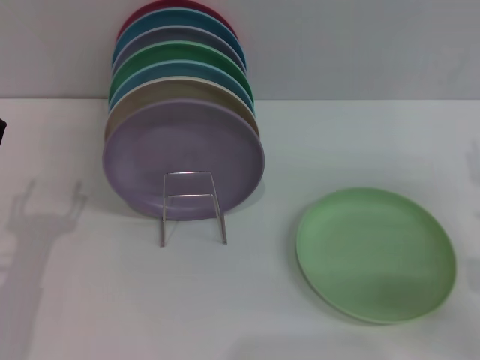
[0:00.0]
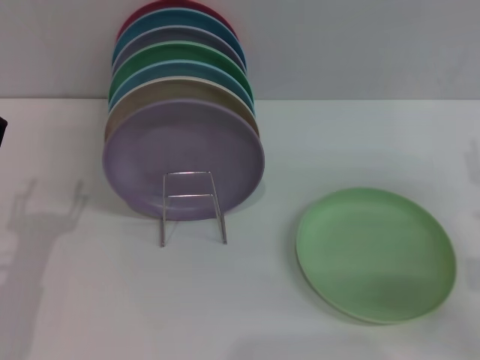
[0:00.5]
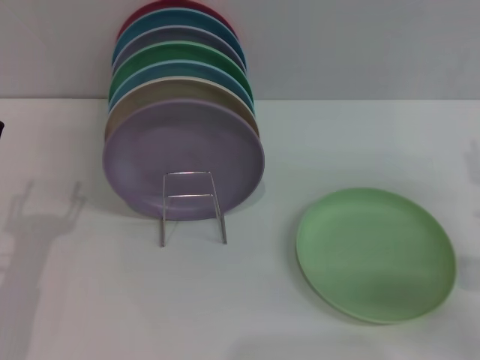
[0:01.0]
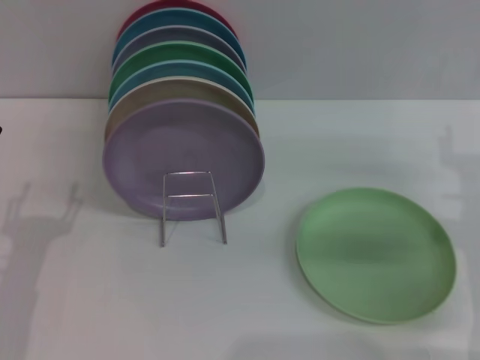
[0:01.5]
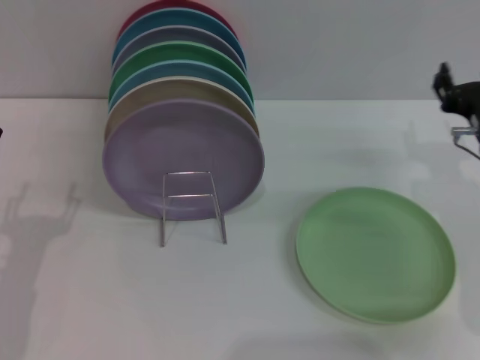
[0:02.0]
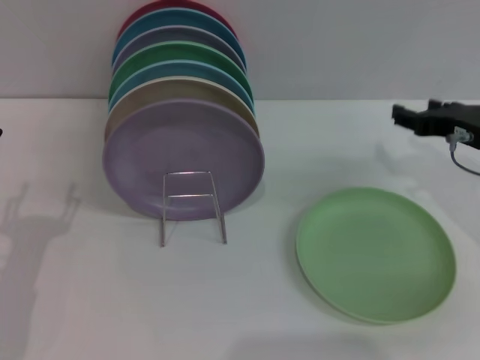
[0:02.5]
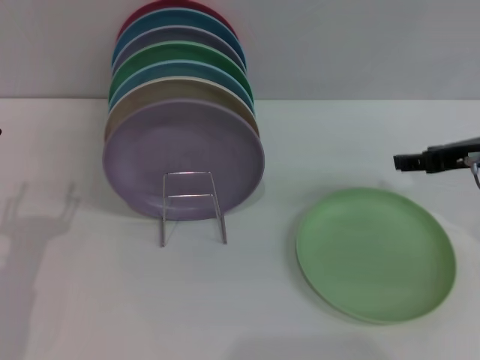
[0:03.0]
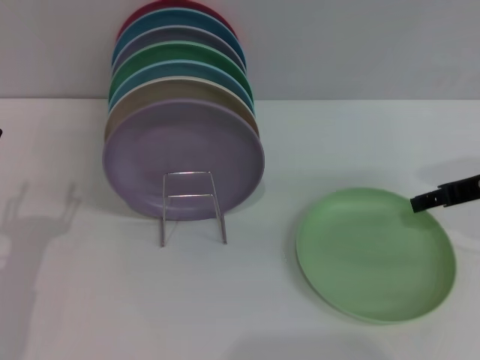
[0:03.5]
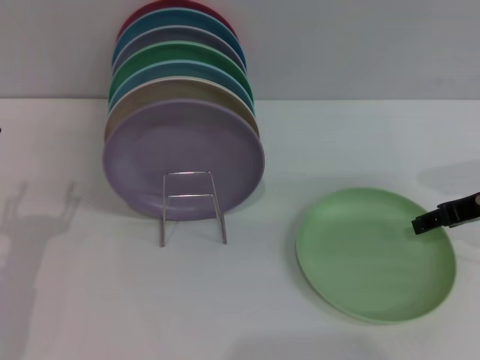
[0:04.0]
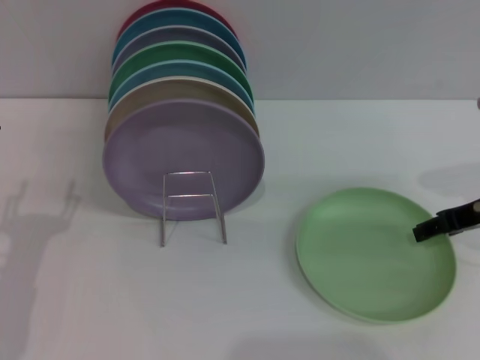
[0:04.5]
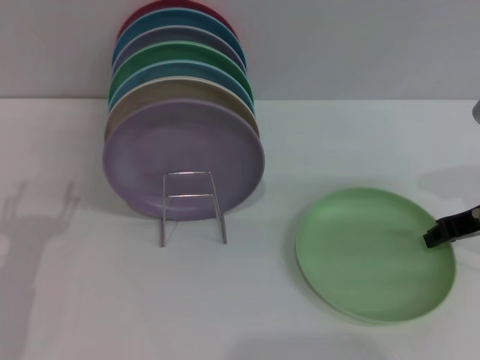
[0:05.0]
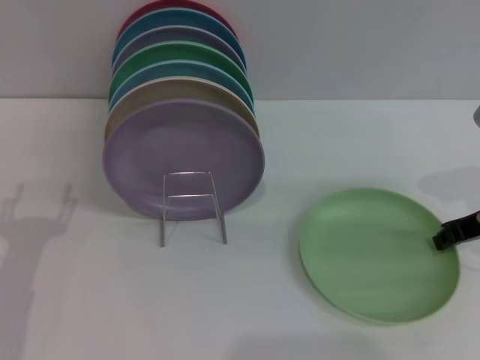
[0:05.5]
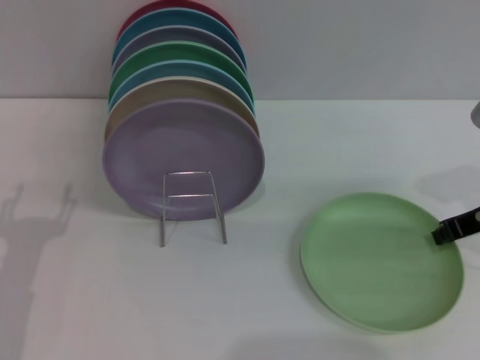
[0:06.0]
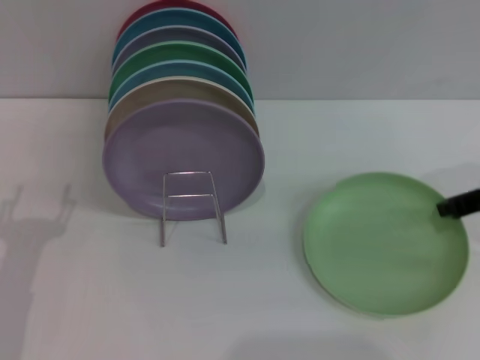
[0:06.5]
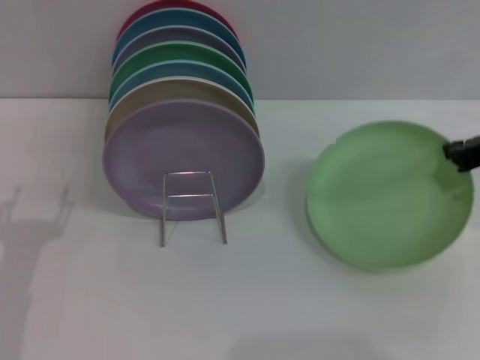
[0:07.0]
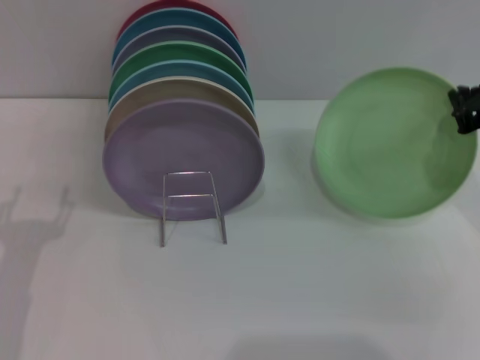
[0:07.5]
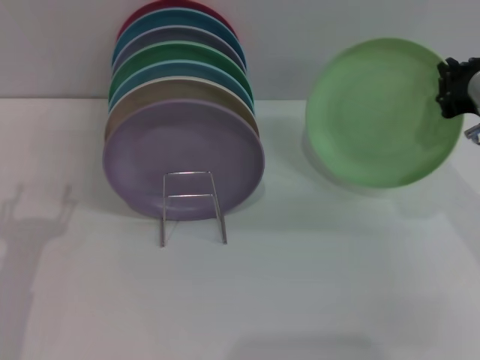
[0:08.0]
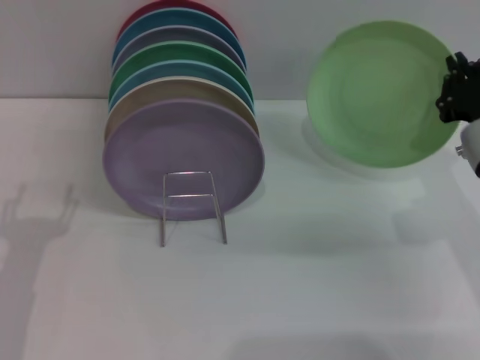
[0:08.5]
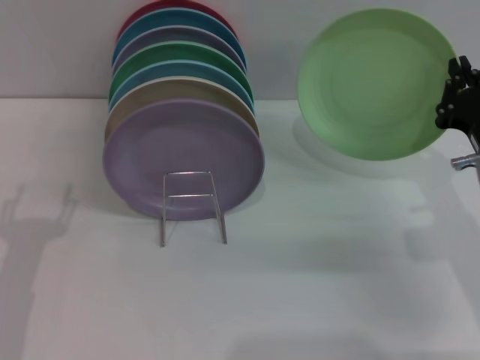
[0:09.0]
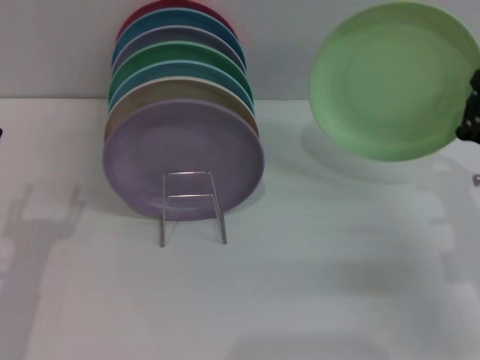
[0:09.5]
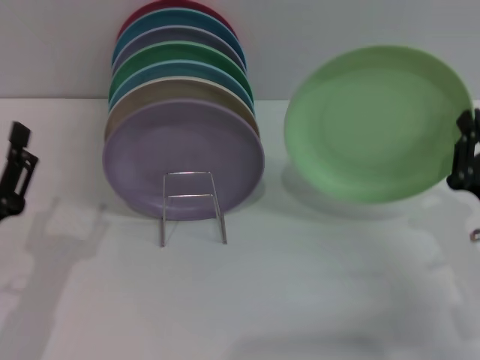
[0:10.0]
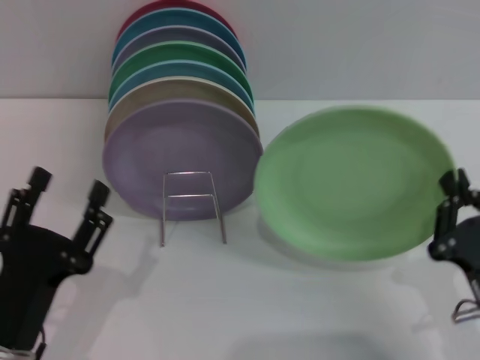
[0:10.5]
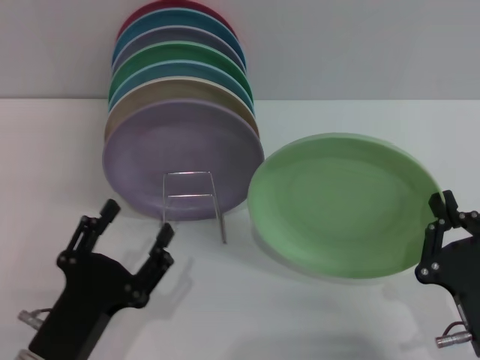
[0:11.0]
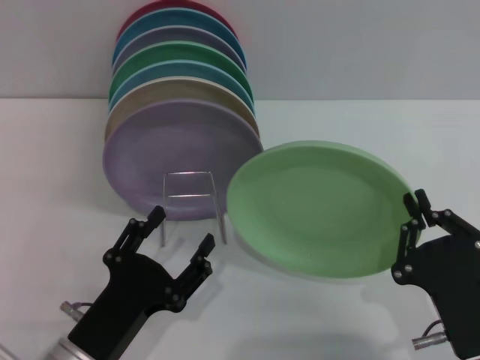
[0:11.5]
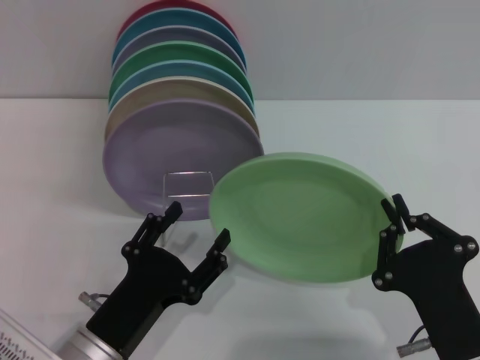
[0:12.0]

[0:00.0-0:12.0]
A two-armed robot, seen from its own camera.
Task of the whole recording: Grip the plate with one hand, pass it to the other, then set it on the shelf.
Step, 0:00.0 to 0:08.0: Pick up the plate with the right gripper.
0:00.0 to 0:02.0: The right gripper goes some 10 cm forward and to the left.
0:02.0 to 0:04.0: The right gripper ends up about 5 cm from where it was.
0:04.0 to 0:06.0: The right gripper closes up.
0:08.0 to 0:10.0: The right gripper is displaced downward and backward by some 15 cm.
0:10.0 to 0:12.0: The left gripper heads to the right, covering some 10 cm; the right gripper moves backward and to the left, about 15 cm.

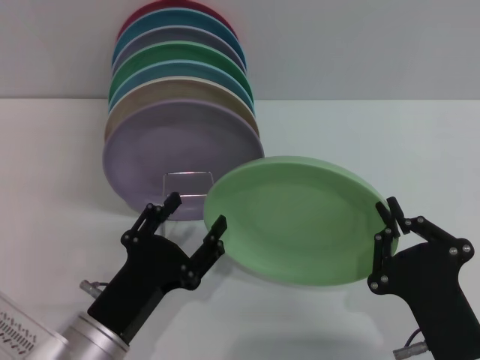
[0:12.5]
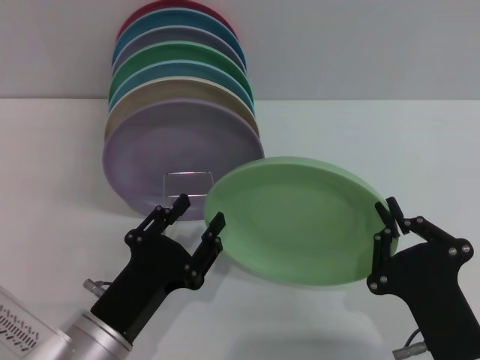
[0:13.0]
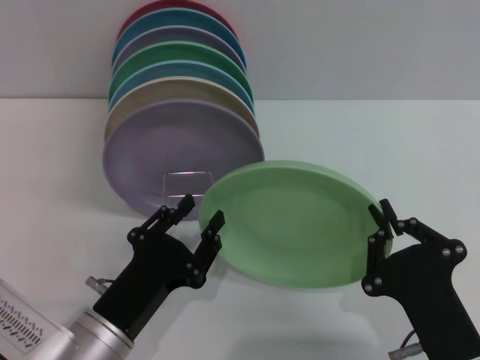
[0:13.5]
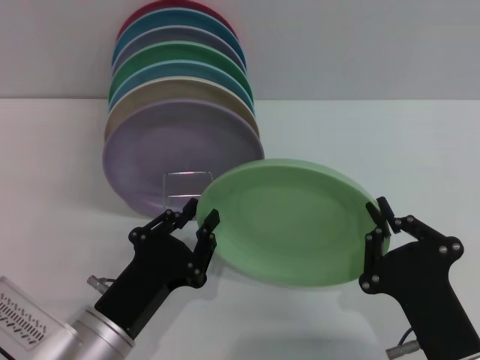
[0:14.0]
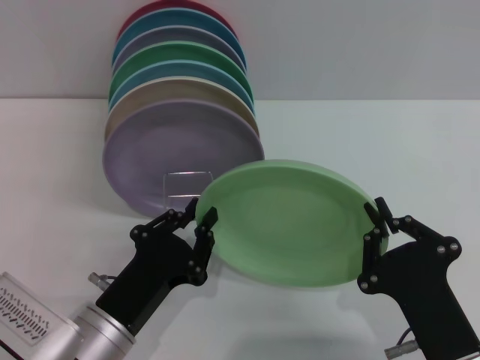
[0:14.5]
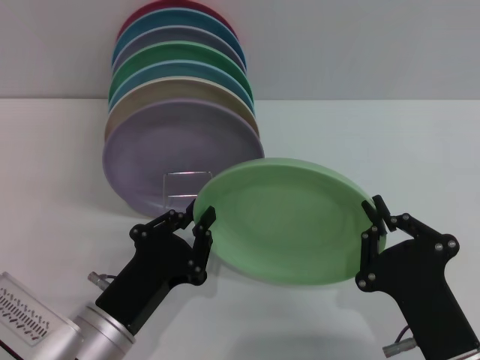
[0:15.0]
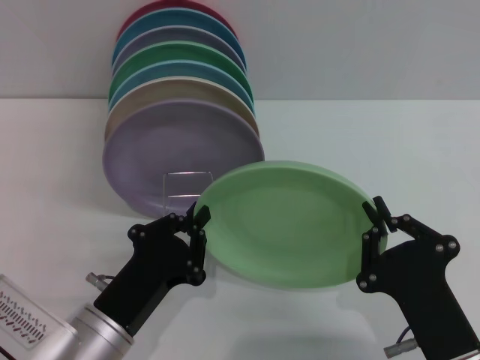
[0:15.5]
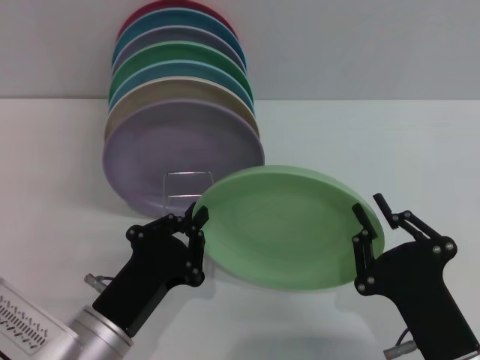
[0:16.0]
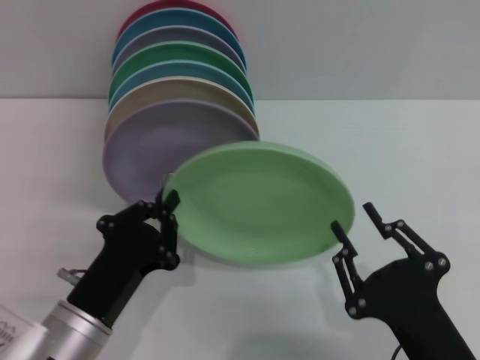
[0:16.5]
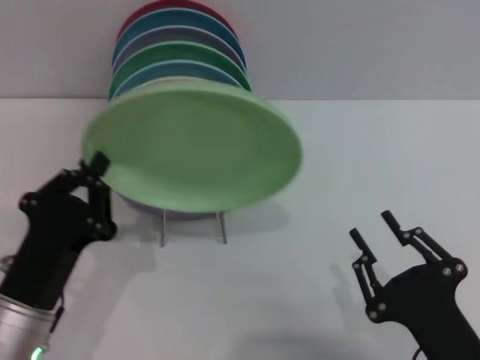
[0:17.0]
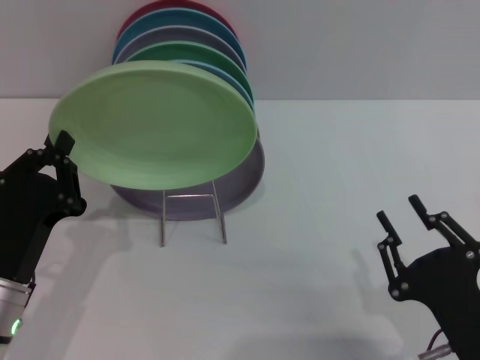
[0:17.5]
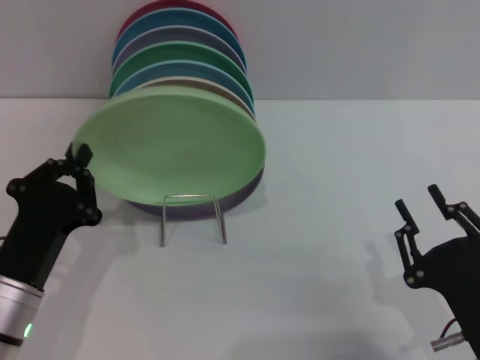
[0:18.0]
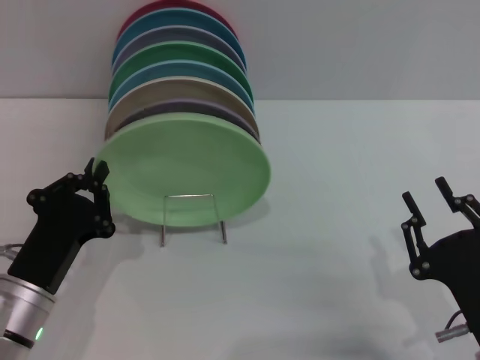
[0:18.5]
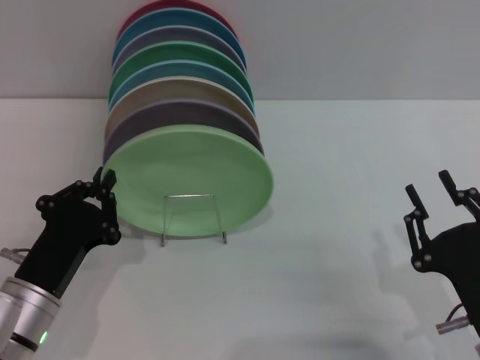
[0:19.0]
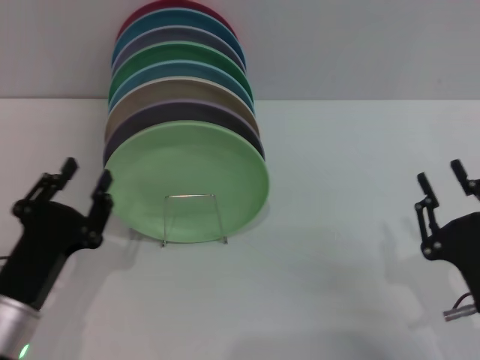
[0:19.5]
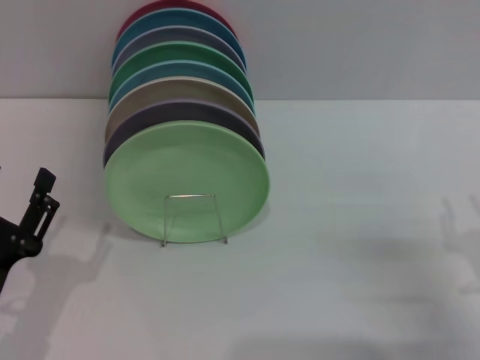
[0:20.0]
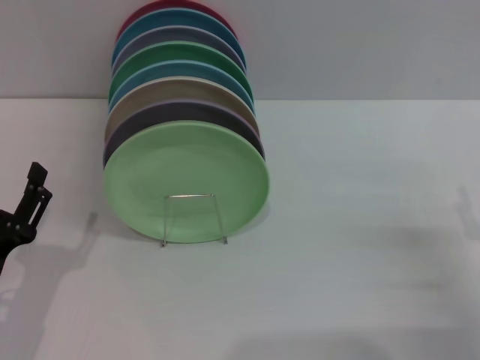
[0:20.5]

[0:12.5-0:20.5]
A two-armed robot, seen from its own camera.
Task of the whole recording: Grip the plate with one hand, pass it to the other, then set it on the shelf.
Step, 0:12.5 to 0:16.5: Pass the plate from the right gripper to the left gripper.
Step, 0:17.0 to 0:19.5: Place the plate on the shelf with the left gripper.
0:12.5 to 0:14.5: The left gripper closes up.
0:14.5 to 0:16.5: The right gripper opens.
0:16.5 to 0:18.5: The right gripper travels to the right by about 5 cm, while the left gripper changes place by approximately 5 cm.
0:18.5 to 0:20.5: The left gripper shifts by some 5 cm, and opens. The right gripper heads to the right and forward, covering some 10 cm, and opens its fingers.

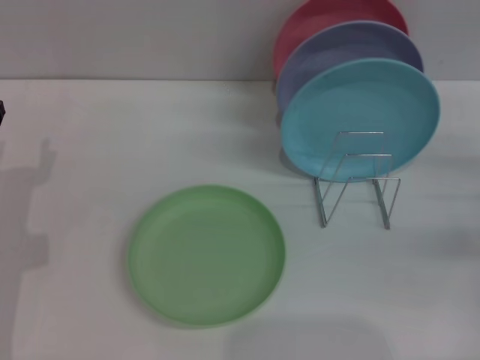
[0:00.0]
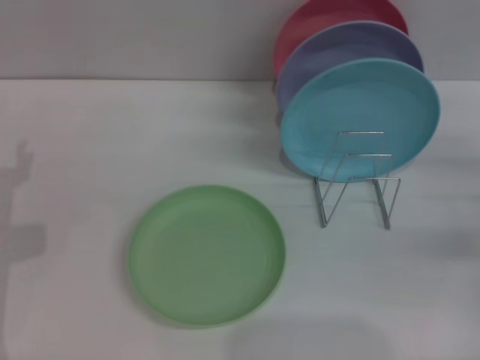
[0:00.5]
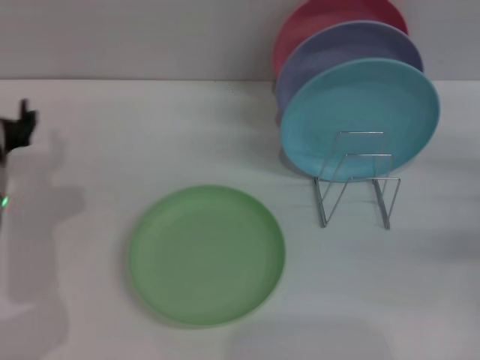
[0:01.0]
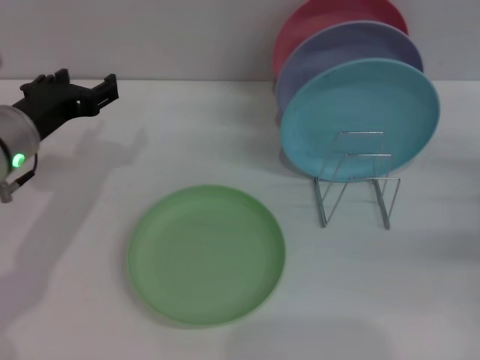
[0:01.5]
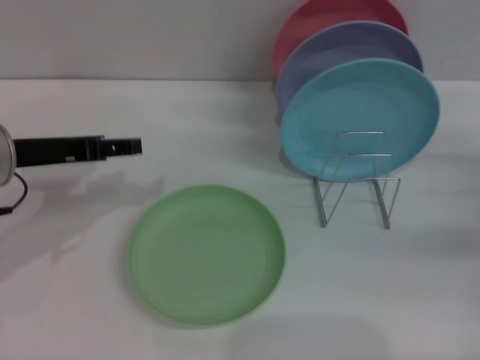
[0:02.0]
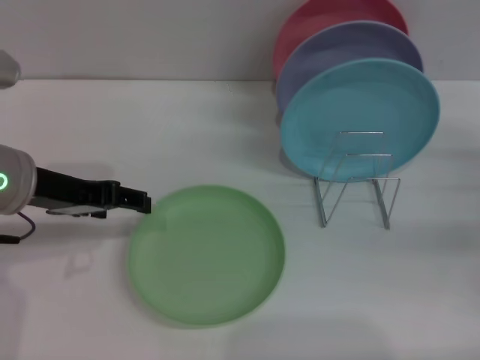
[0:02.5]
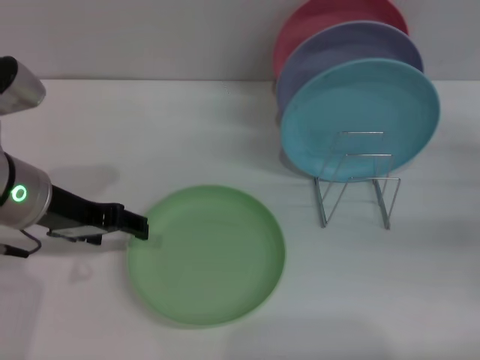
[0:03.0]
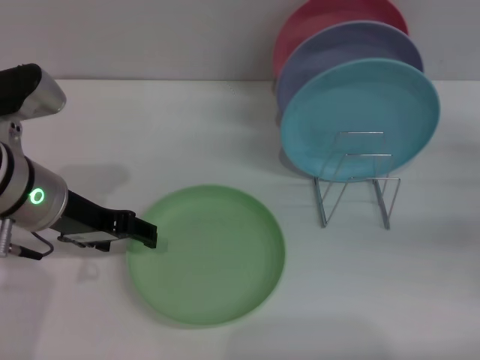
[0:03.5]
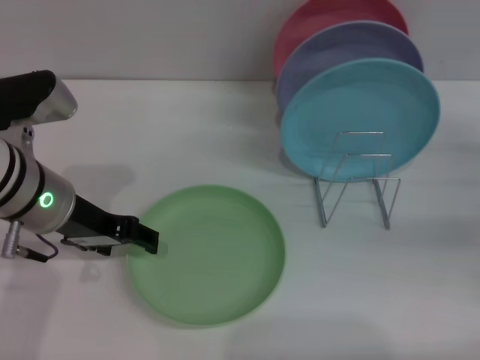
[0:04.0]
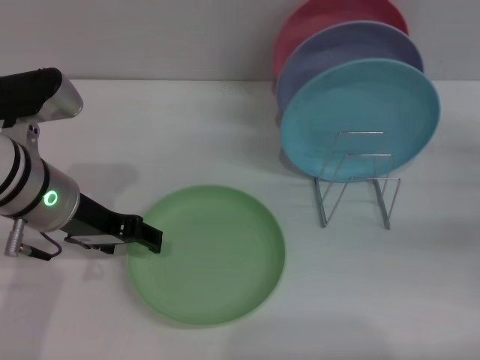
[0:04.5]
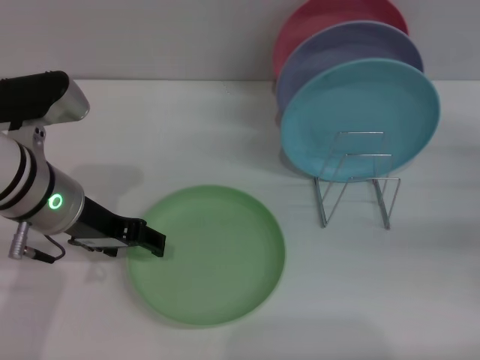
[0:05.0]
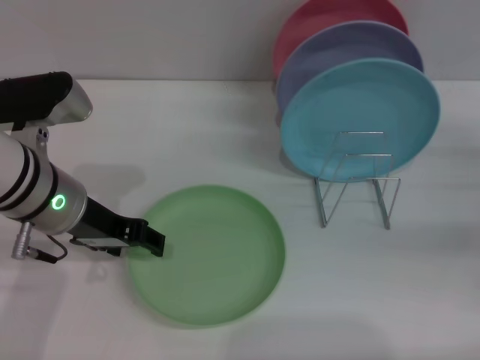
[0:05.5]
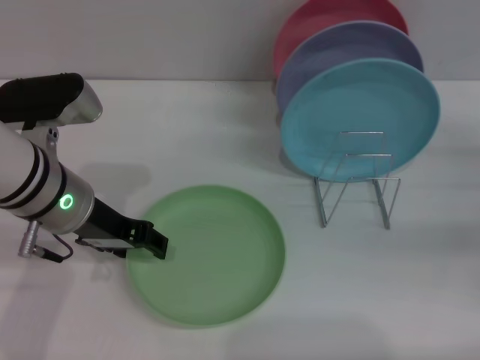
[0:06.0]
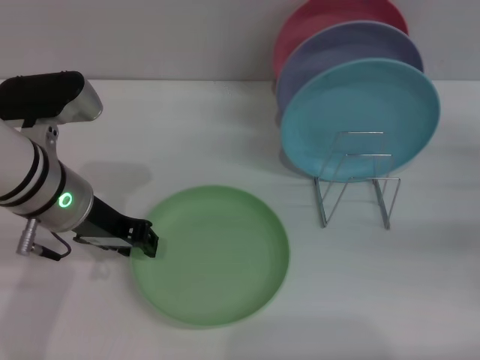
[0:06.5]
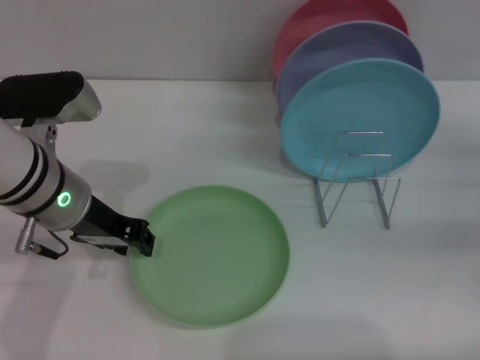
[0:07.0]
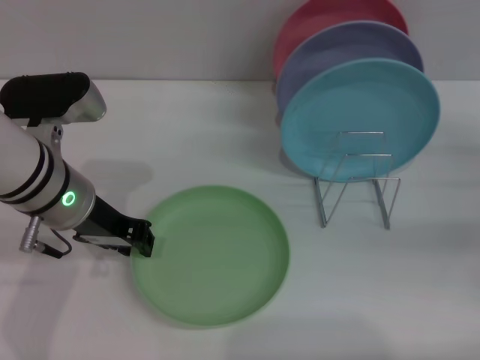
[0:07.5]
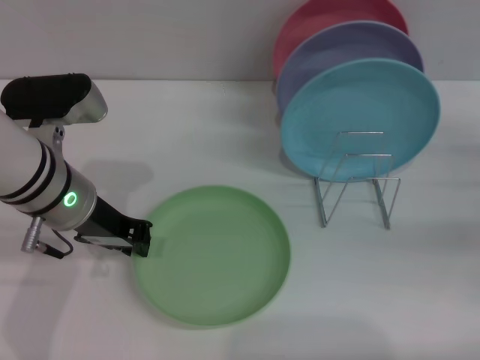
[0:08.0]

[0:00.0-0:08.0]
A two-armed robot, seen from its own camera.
Task of the whole recording: Grip the plate with one hand, pass it to the other, then set it on the shelf.
0:00.0 to 0:02.0: The left gripper is displaced upward by roughly 10 cm.
0:02.0 to 0:04.0: The left gripper shifts roughly 5 cm to the right.
0:04.0 to 0:06.0: The grippers make only small movements.
0:06.0 to 0:08.0: The left gripper closes.
